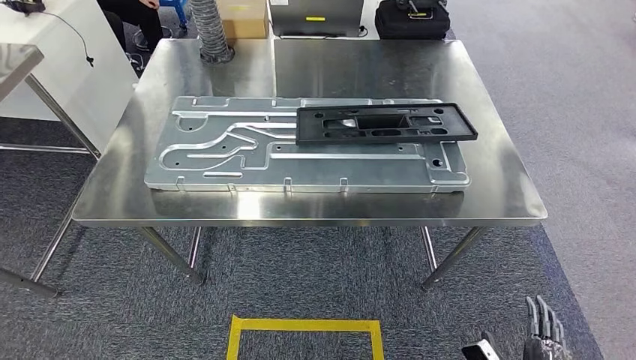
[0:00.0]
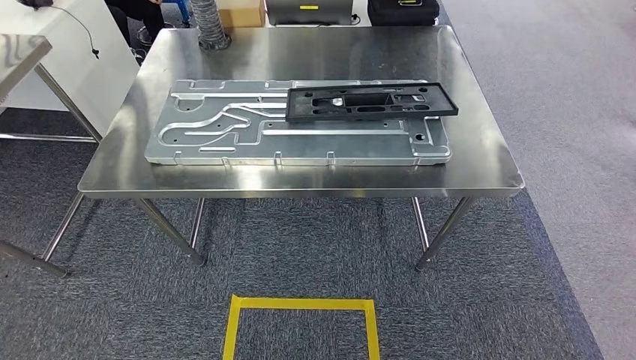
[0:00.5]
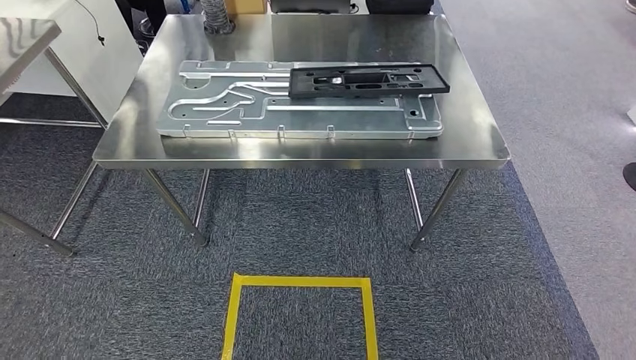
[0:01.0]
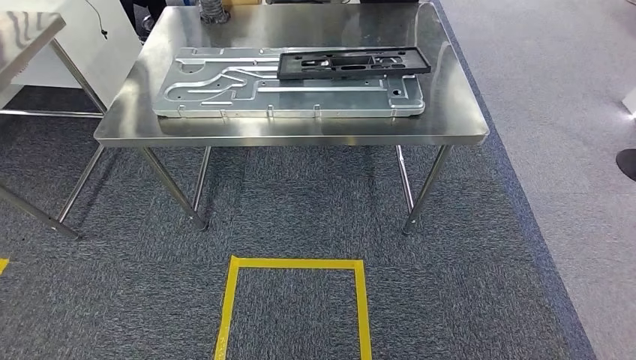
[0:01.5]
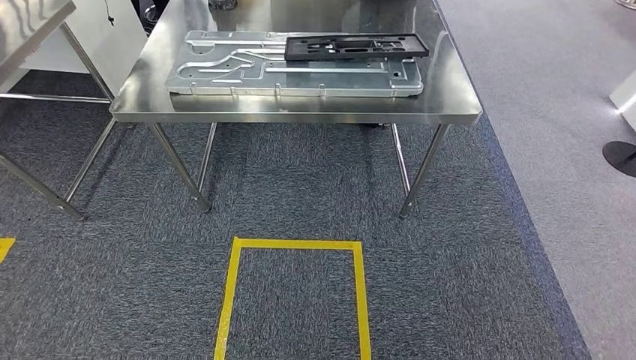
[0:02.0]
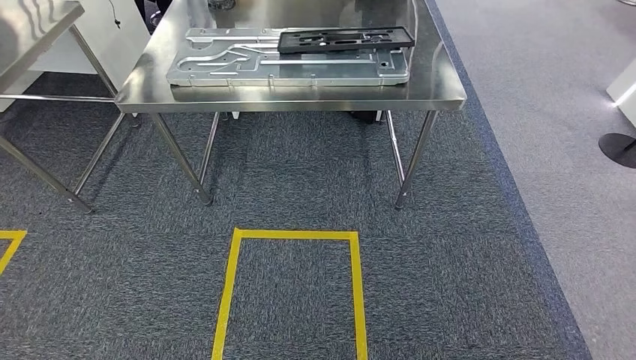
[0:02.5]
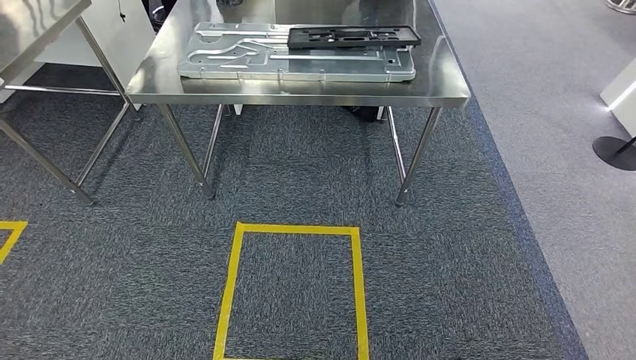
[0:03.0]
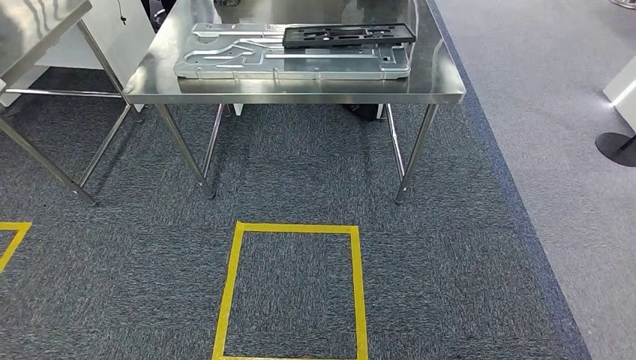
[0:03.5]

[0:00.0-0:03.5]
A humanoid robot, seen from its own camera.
Step, 0:00.0 to 0:03.5: Return to the initial position at the shelf.
0:02.0 to 0:03.5: The hands make only small movements.

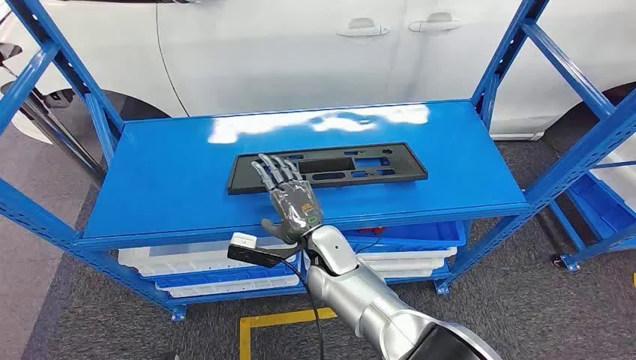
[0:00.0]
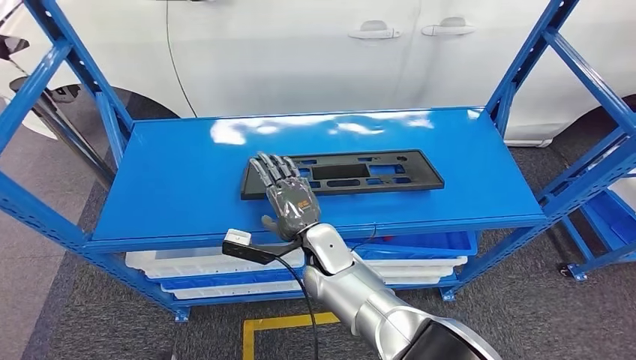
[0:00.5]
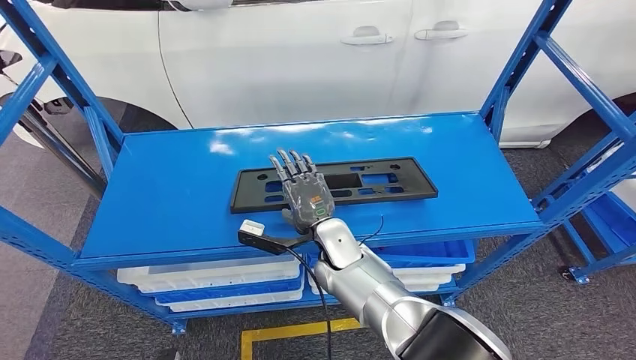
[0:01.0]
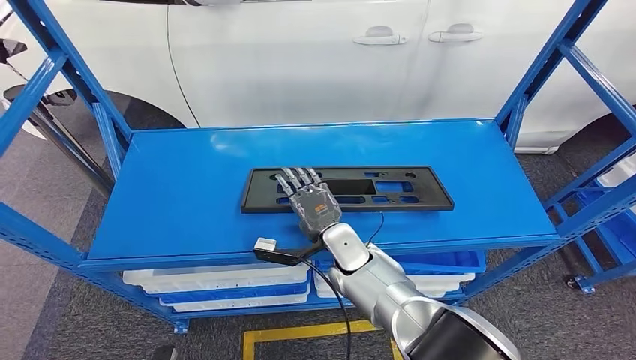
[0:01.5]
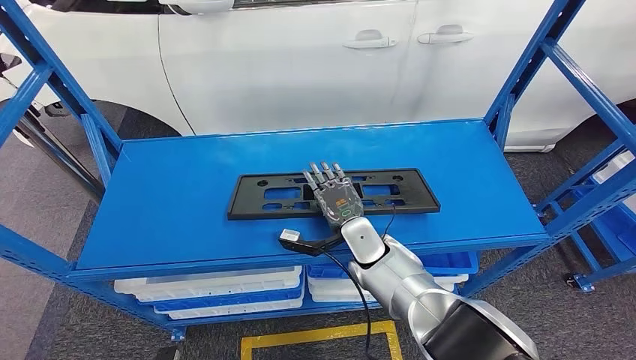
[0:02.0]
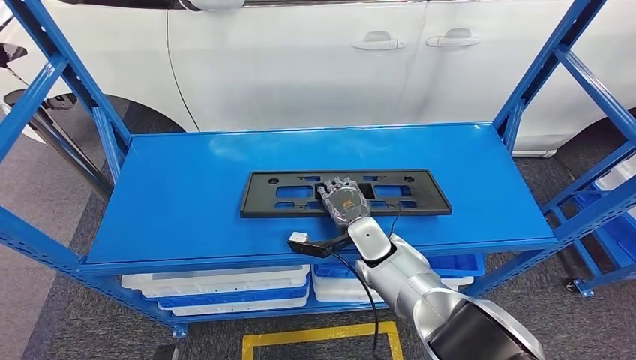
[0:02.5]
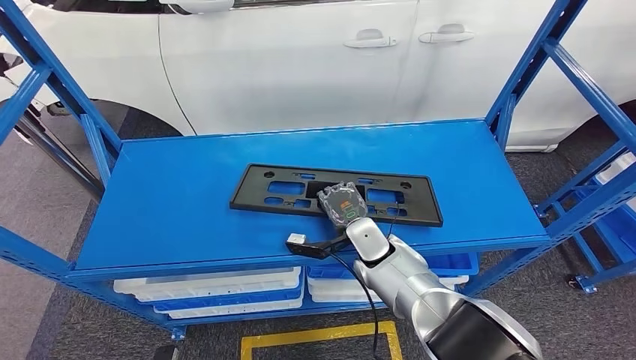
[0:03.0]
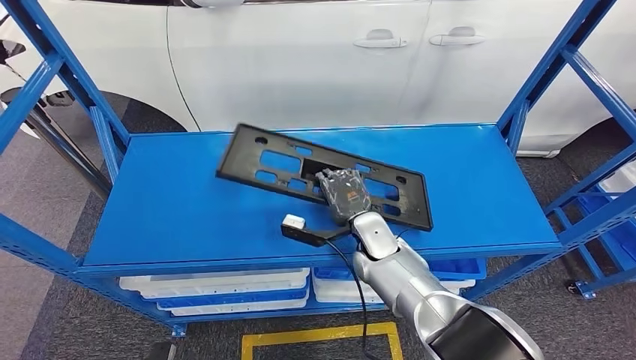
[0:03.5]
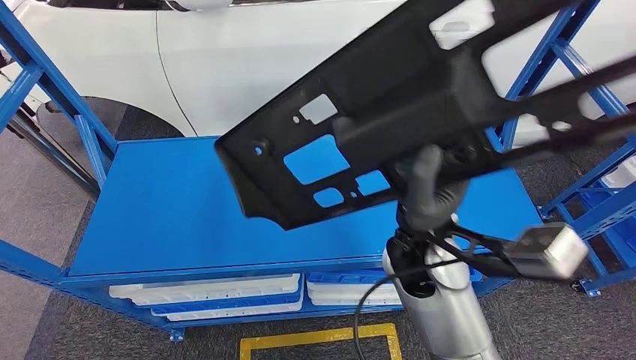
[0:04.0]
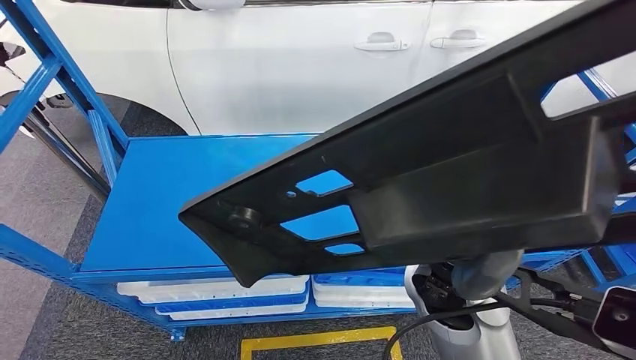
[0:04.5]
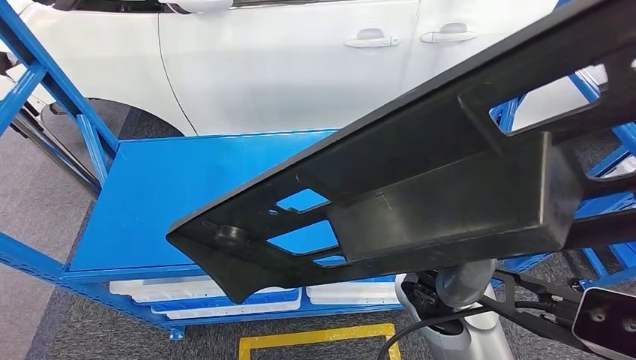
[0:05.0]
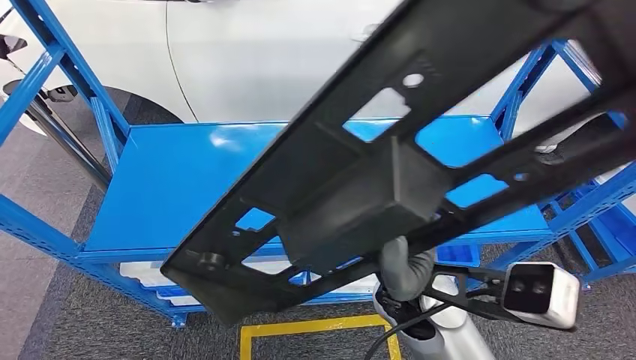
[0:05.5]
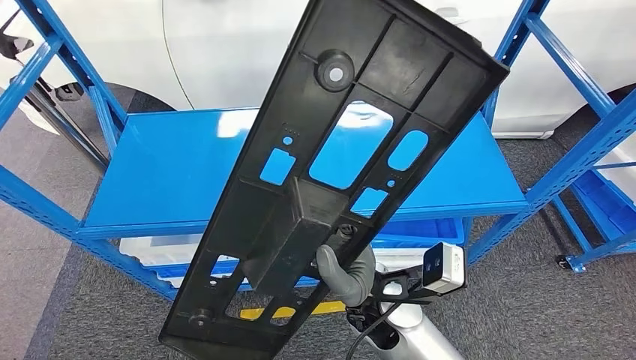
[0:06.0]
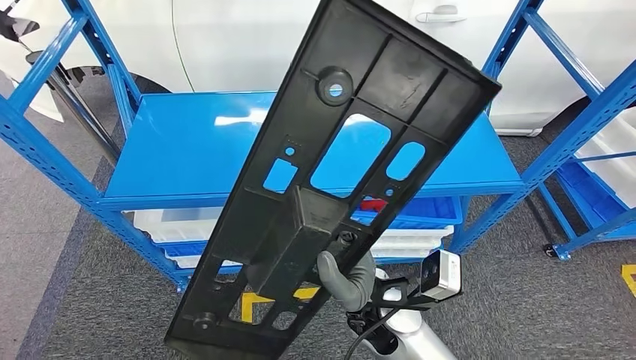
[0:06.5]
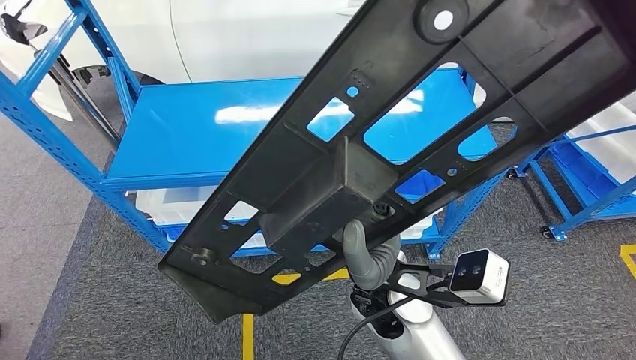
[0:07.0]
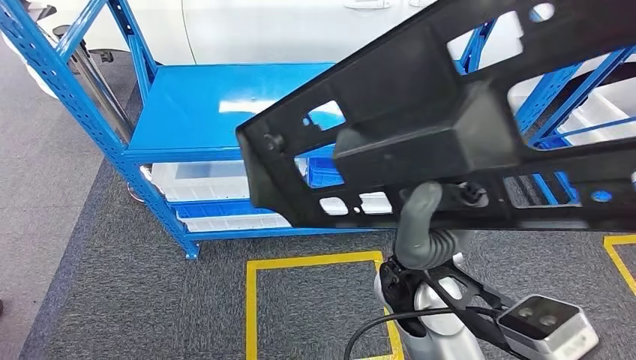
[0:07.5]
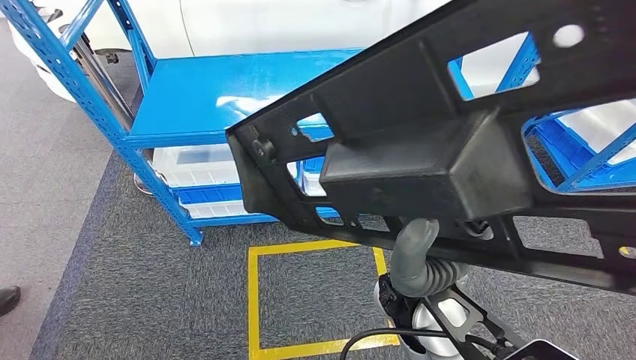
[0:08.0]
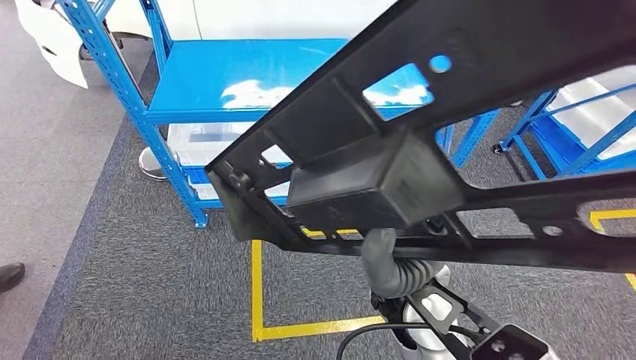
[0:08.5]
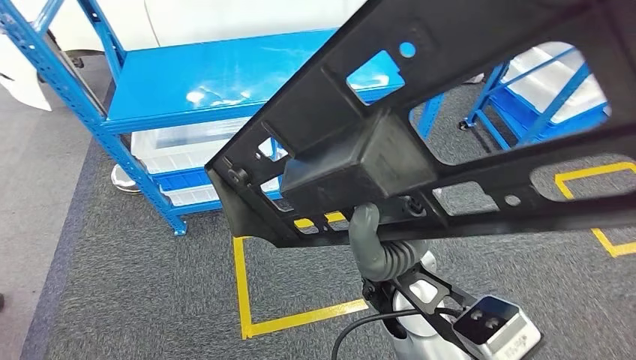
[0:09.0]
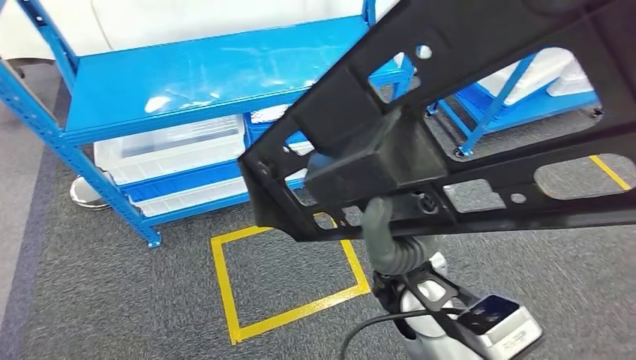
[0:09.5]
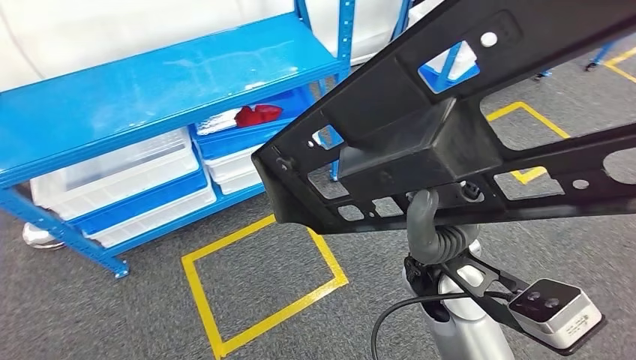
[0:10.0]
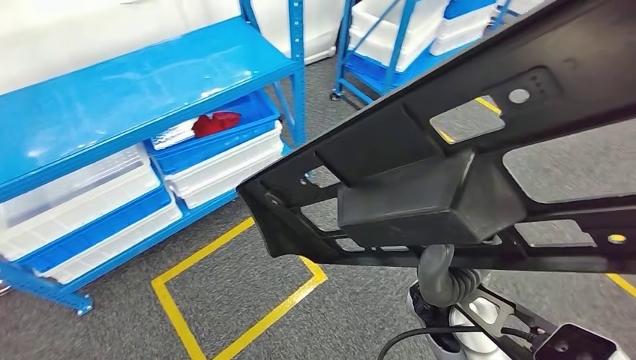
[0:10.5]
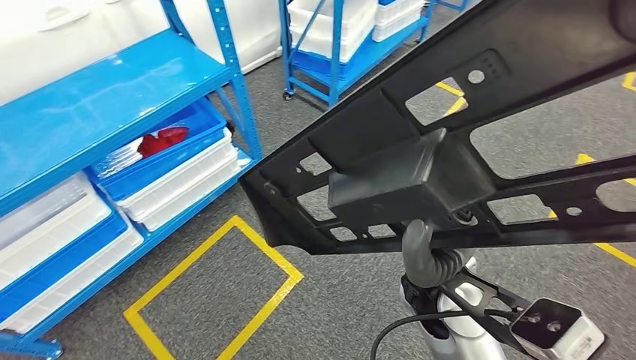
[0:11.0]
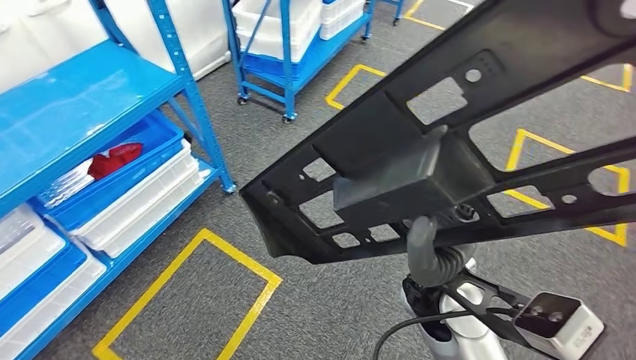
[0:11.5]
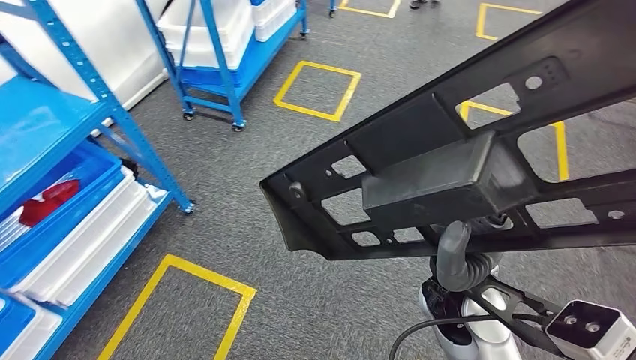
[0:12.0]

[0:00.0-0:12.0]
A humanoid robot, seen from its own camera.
Step, 0:00.0 to 0:04.5: Pick up the large material from the shelf.

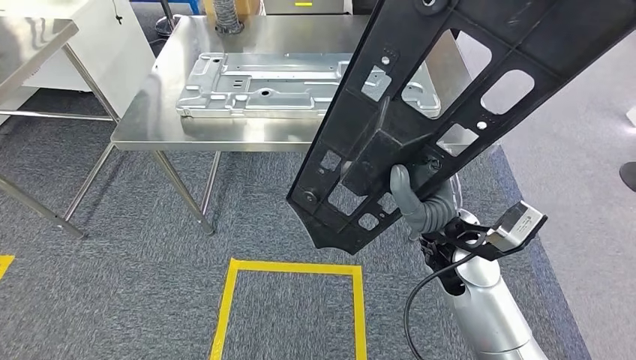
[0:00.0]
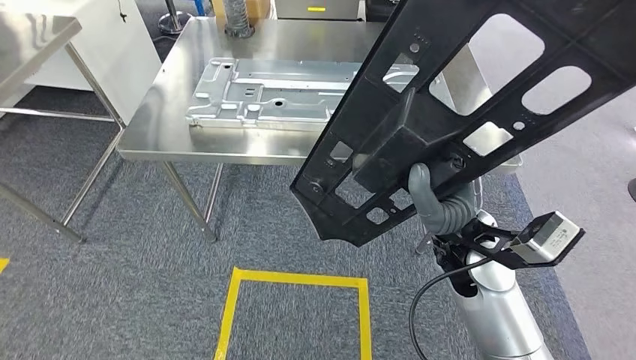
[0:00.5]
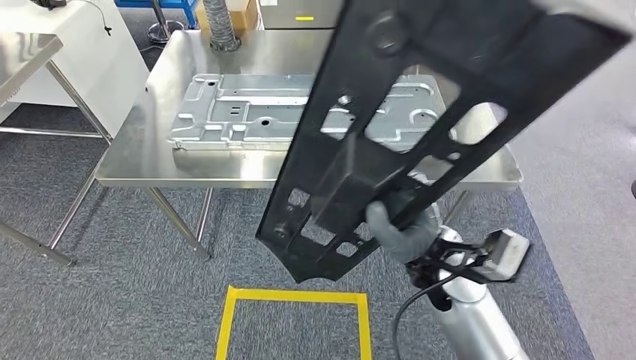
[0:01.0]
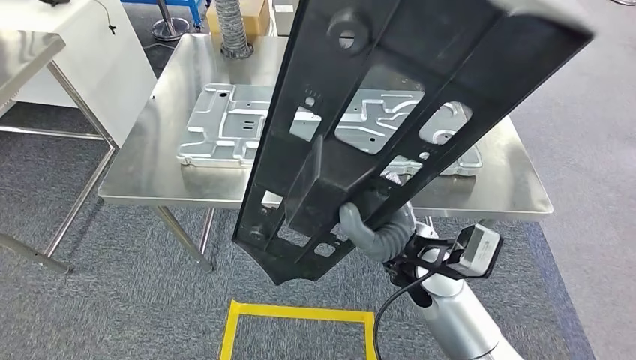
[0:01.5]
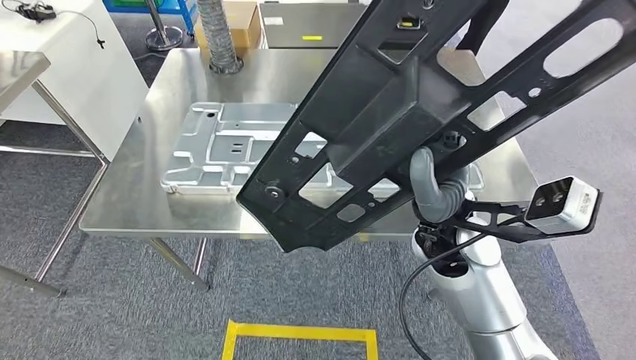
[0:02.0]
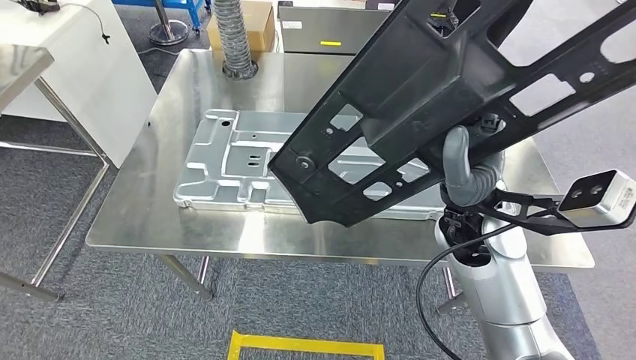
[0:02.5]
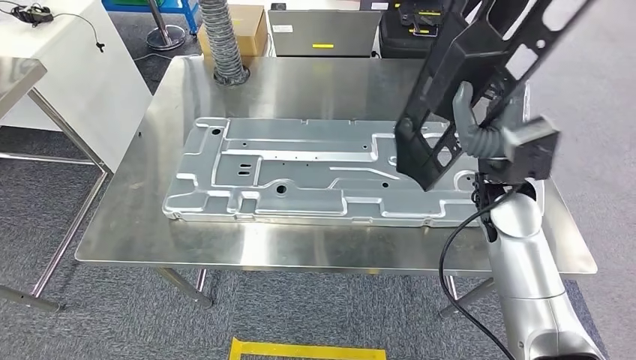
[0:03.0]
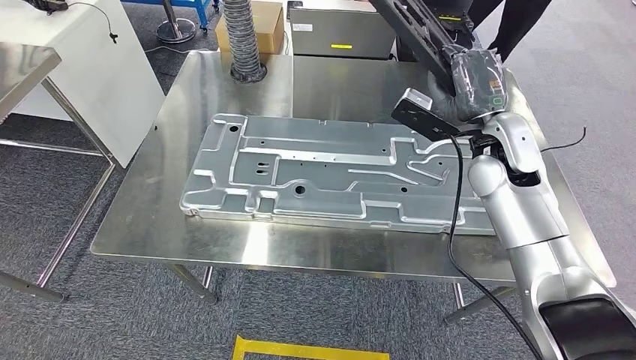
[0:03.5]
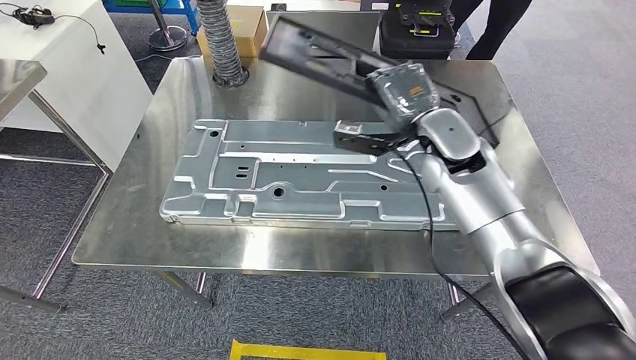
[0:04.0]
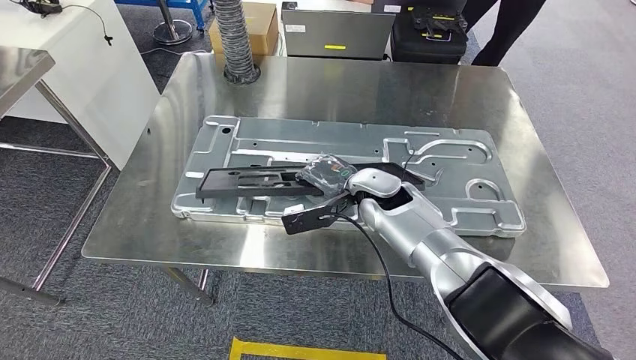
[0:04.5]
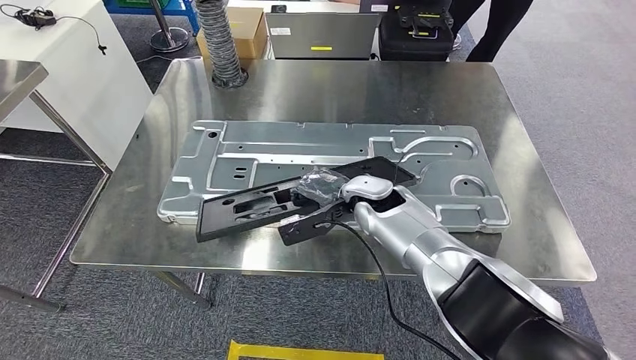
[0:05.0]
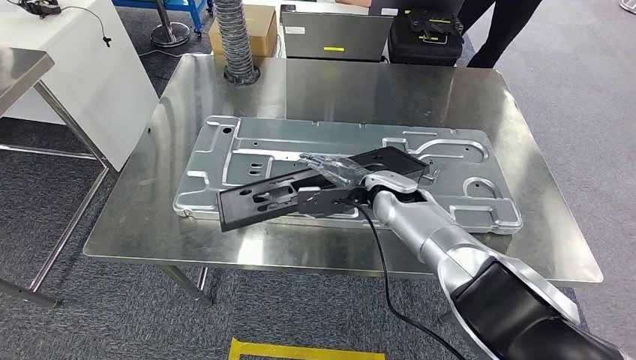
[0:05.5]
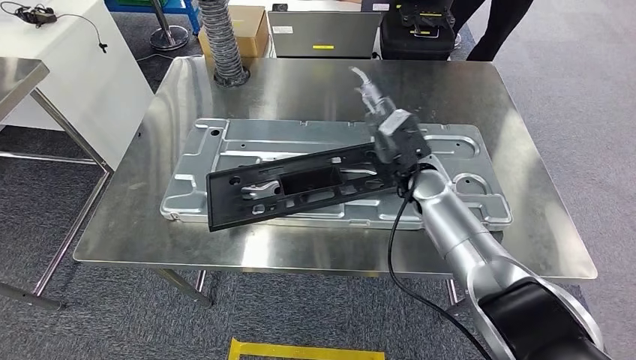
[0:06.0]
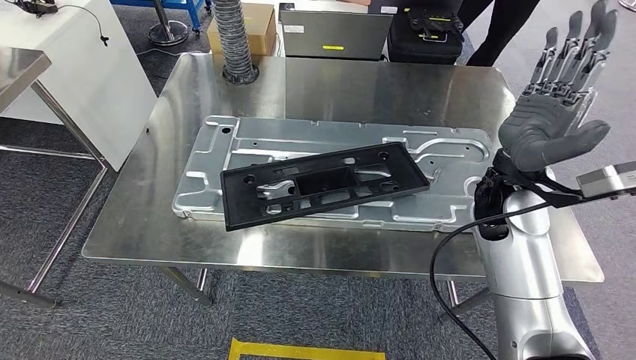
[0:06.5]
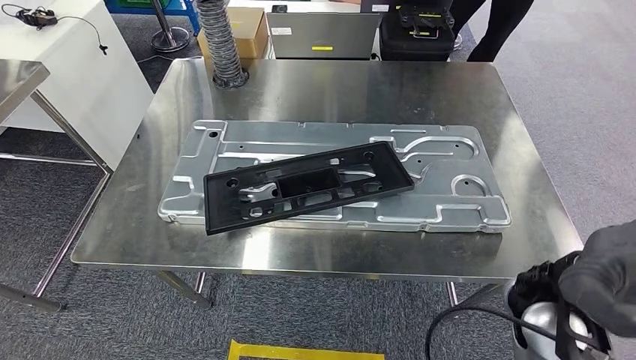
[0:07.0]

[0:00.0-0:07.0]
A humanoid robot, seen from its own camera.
0:05.0 to 0:07.0: The right hand goes some 30 cm backward, to the right and upward.
